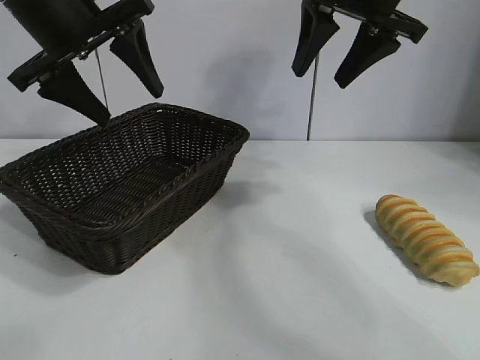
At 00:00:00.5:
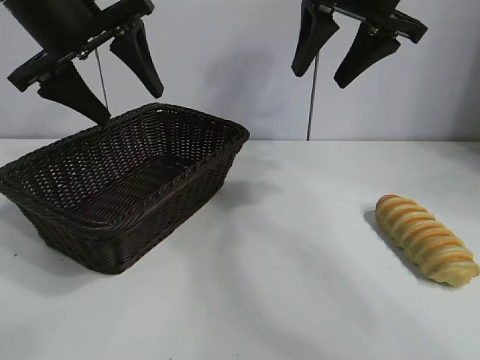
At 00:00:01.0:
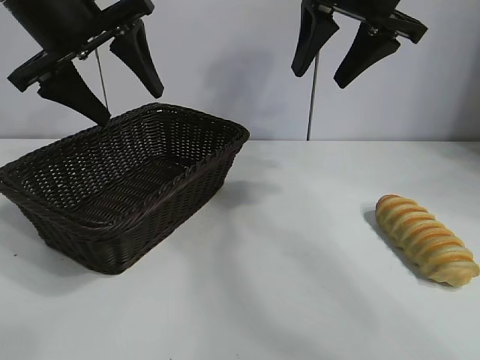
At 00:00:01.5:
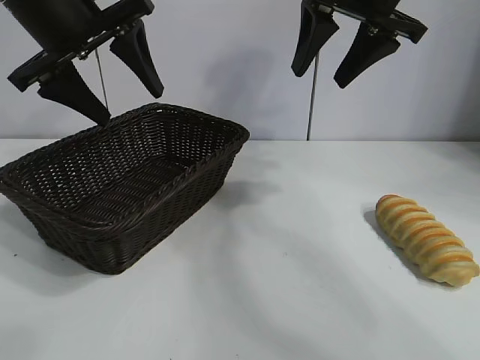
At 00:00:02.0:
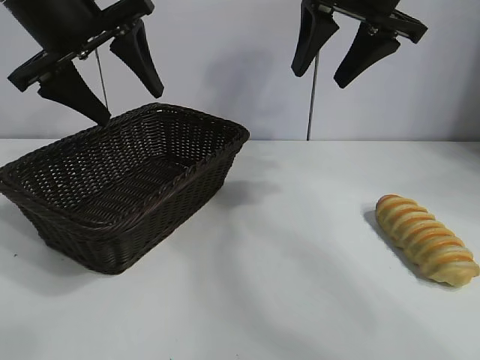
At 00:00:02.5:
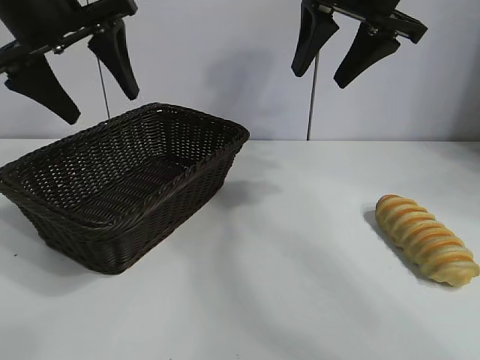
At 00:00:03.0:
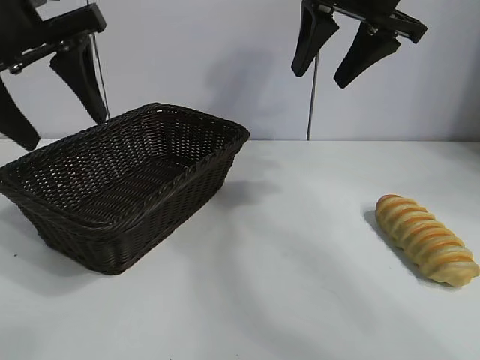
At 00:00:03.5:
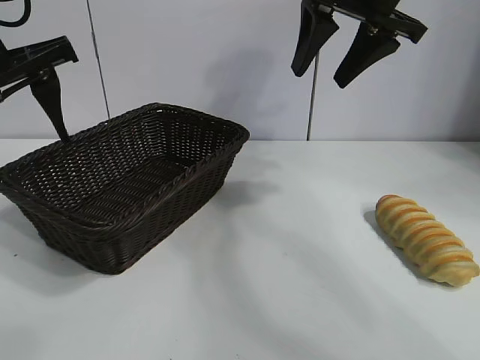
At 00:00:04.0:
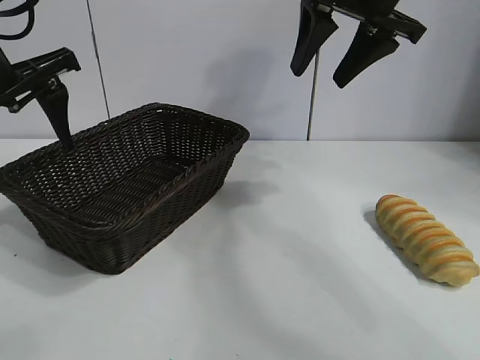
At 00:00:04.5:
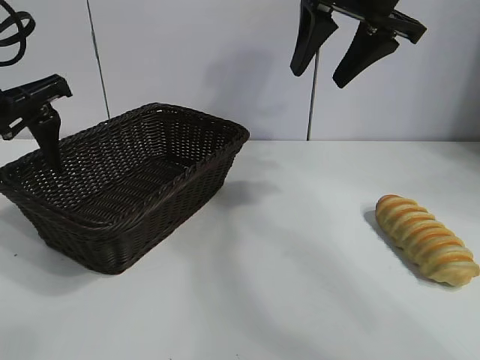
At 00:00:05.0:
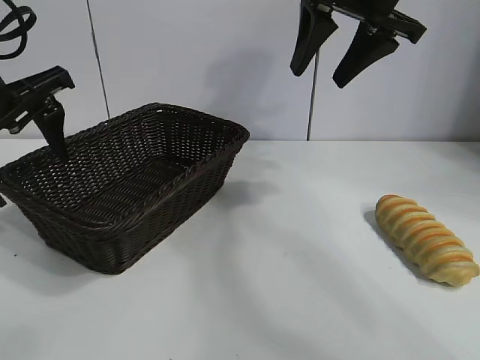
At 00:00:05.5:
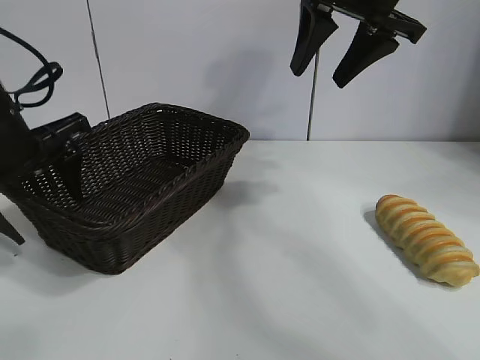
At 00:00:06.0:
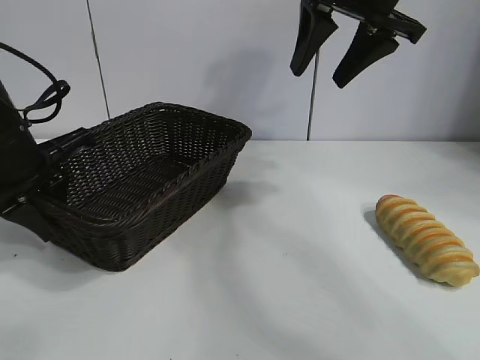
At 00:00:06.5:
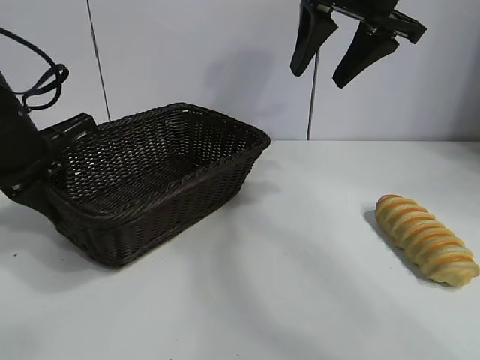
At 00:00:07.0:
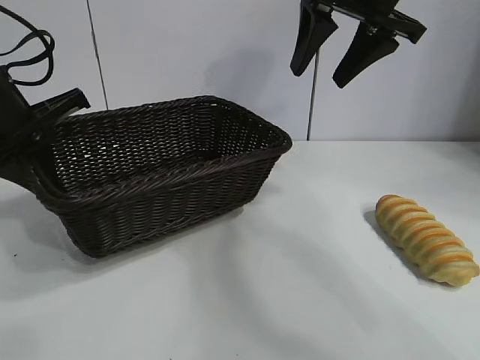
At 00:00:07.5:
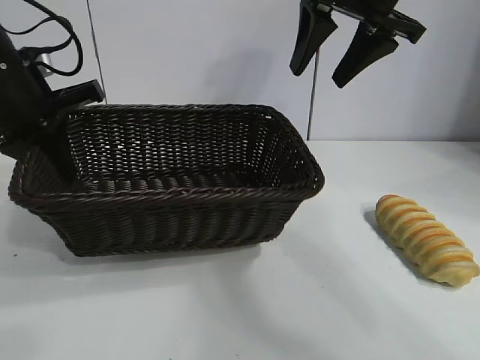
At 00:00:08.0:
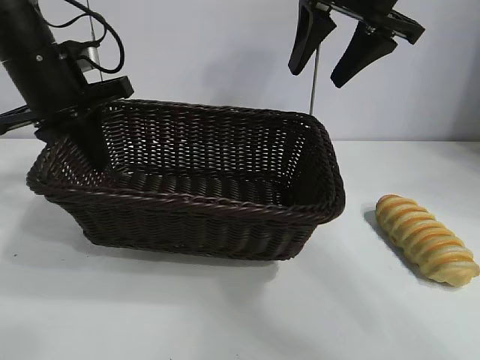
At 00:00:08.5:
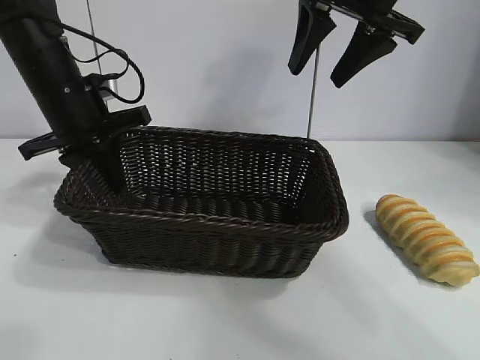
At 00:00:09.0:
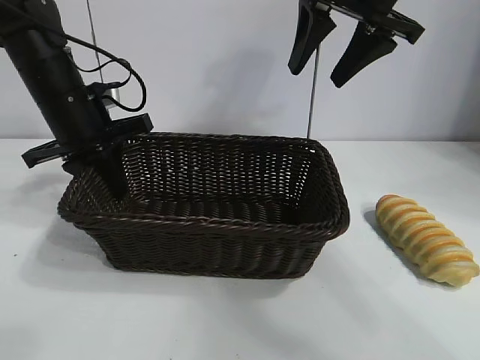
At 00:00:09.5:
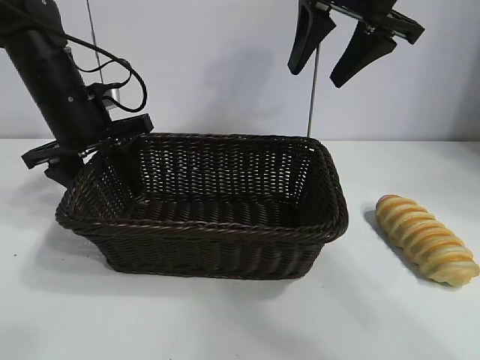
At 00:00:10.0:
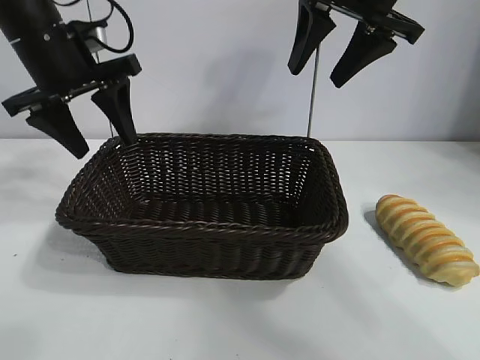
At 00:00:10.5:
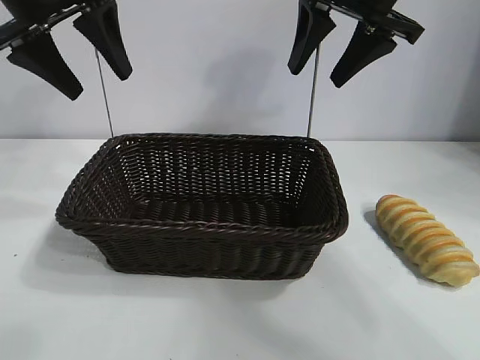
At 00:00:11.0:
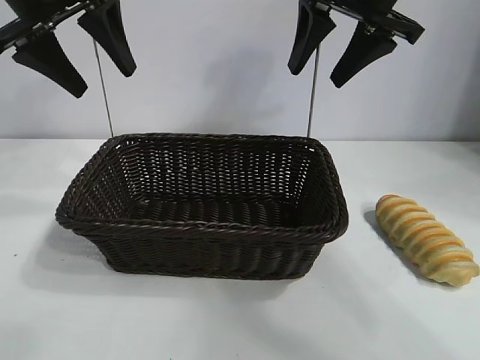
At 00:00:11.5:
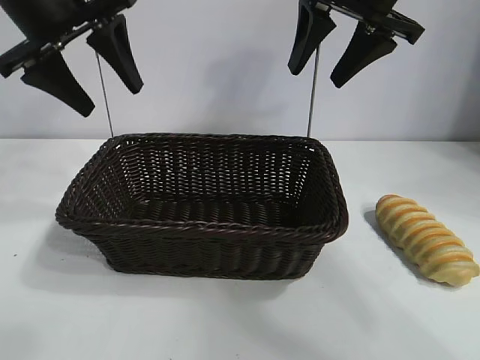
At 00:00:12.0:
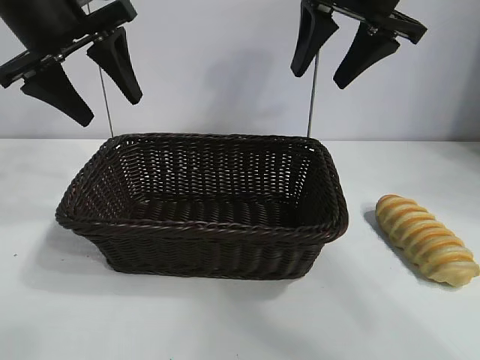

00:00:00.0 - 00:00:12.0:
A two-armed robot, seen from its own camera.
Task of the whole recording: pick up the long bread and put it into the basket.
Step, 00:00:02.5 - 00:00:06.0: Grasp the basket with the left gripper.
Step, 00:00:06.5 - 00:00:09.5: Place the basket in the center of the table with the left gripper.

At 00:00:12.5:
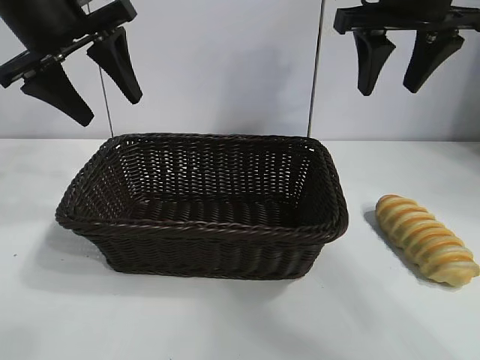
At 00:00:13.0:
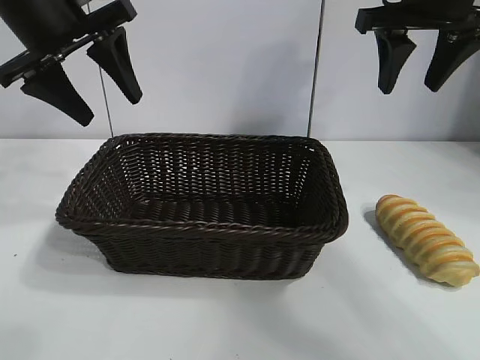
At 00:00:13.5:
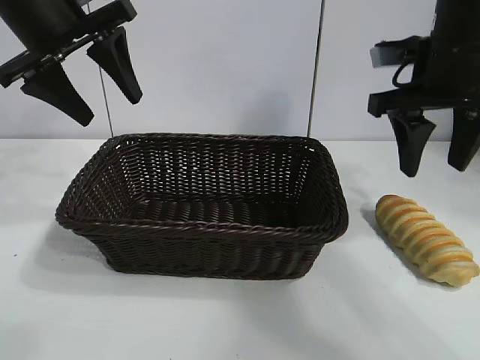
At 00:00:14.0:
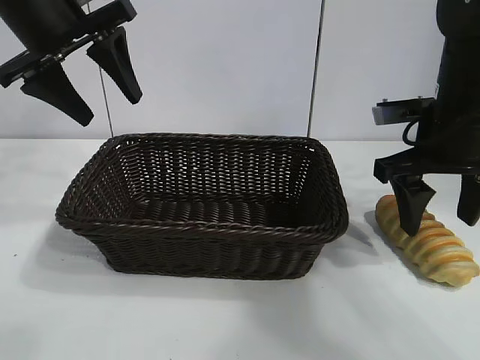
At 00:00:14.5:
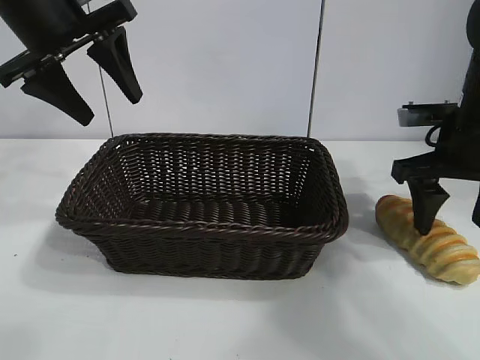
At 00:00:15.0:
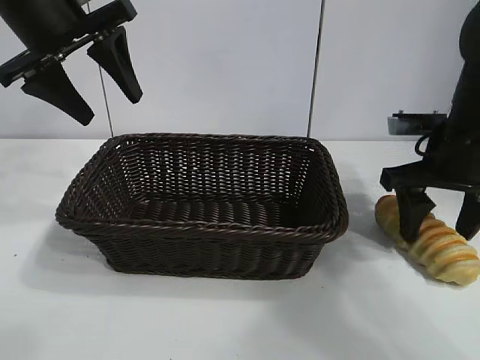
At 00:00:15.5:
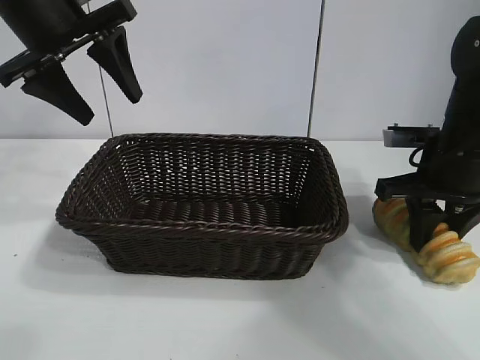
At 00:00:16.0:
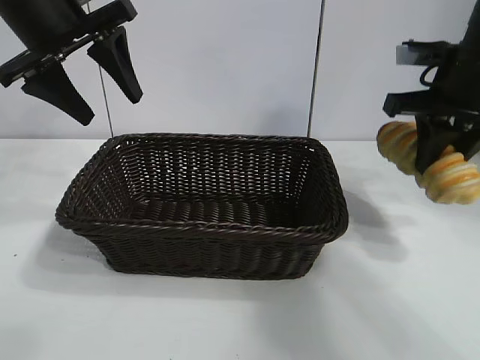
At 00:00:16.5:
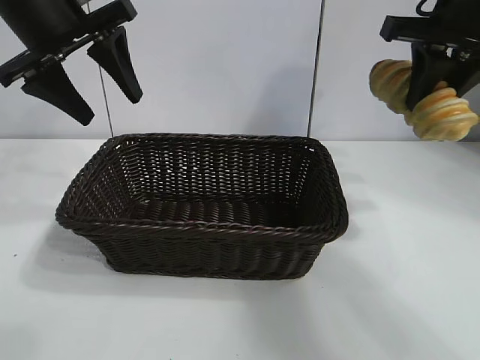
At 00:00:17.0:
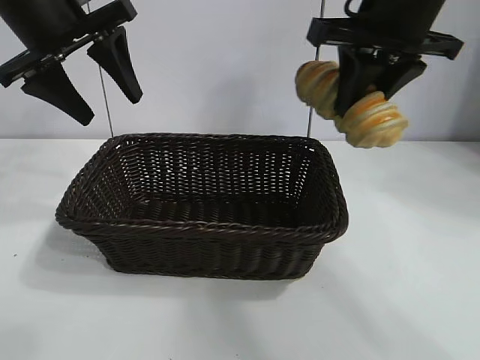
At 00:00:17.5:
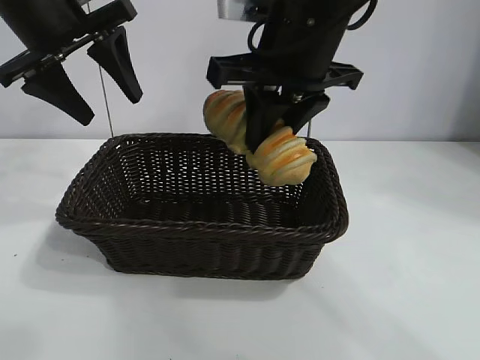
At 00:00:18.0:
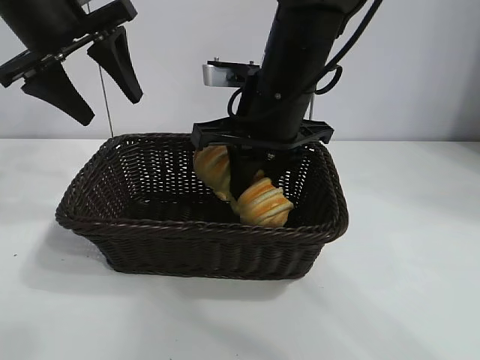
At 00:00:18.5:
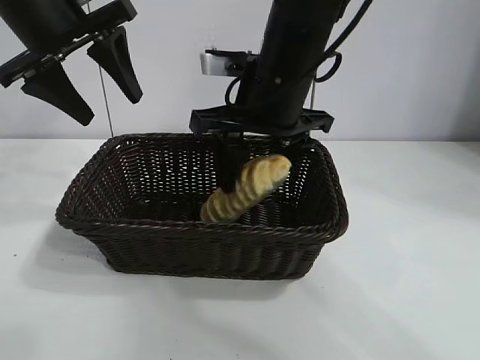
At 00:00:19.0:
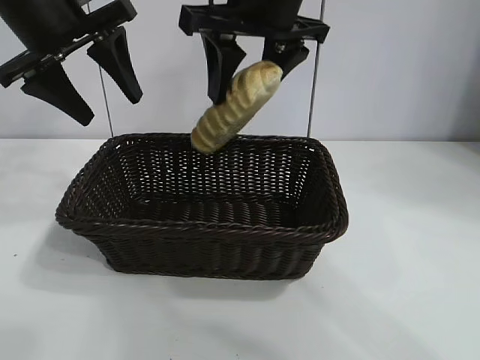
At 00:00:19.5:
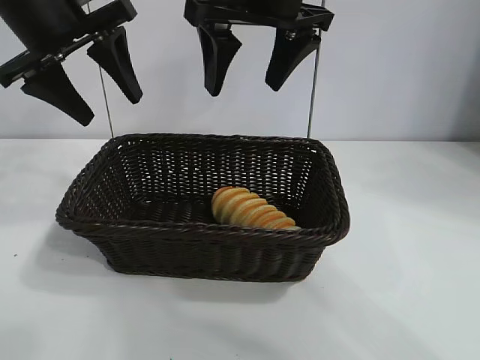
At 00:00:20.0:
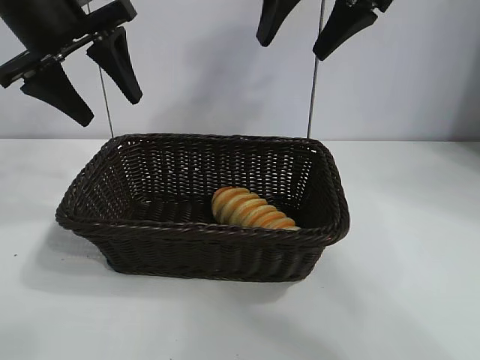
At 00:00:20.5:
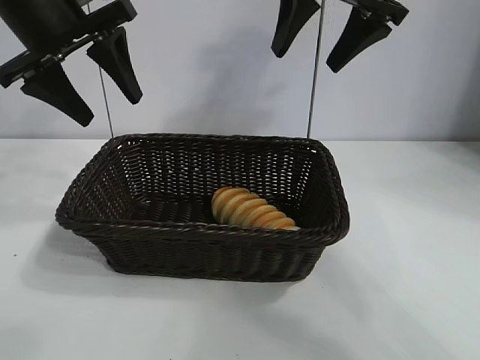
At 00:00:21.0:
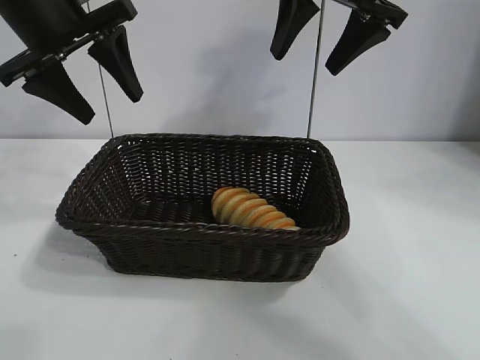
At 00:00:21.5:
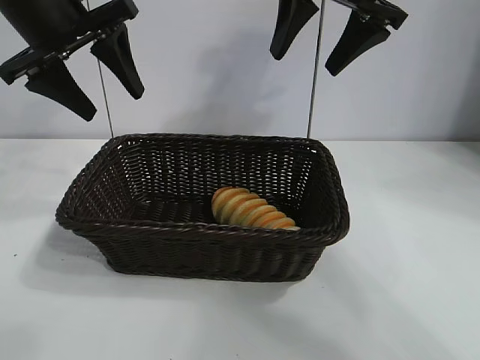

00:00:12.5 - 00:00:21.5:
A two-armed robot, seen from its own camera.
Task of the whole recording: pick up the long bread and put it into the basket.
Step, 00:00:12.5 - 00:00:15.5: Grasp the long bread with right gripper.
Step, 00:00:16.0 - 00:00:19.5: Place the long bread in the basket with right gripper.
